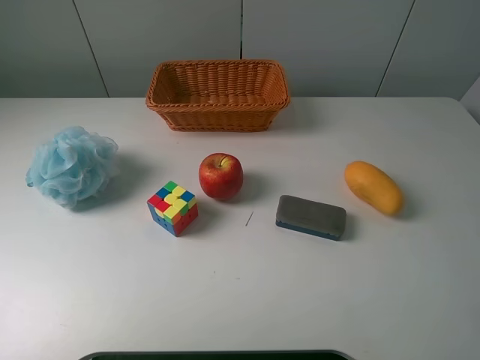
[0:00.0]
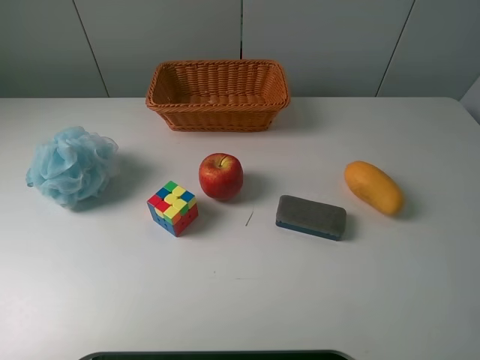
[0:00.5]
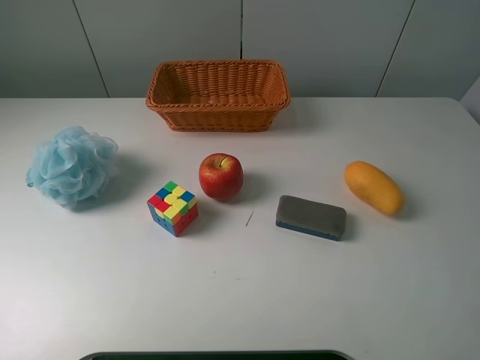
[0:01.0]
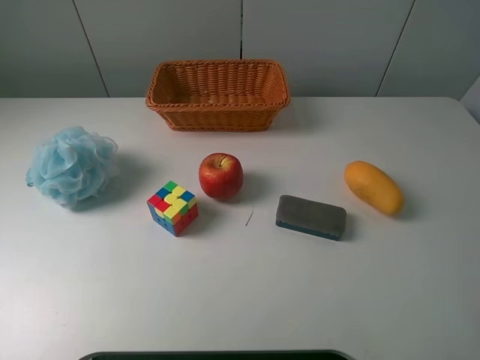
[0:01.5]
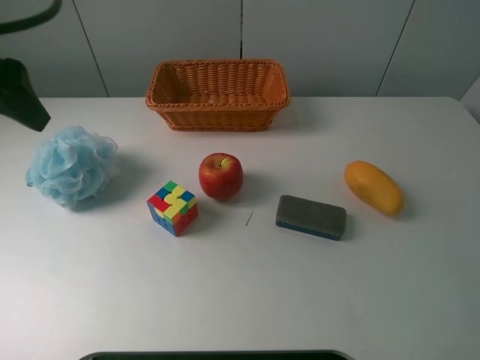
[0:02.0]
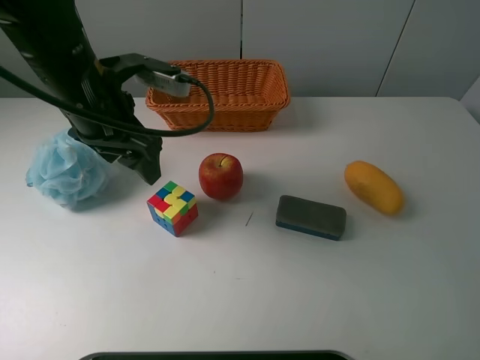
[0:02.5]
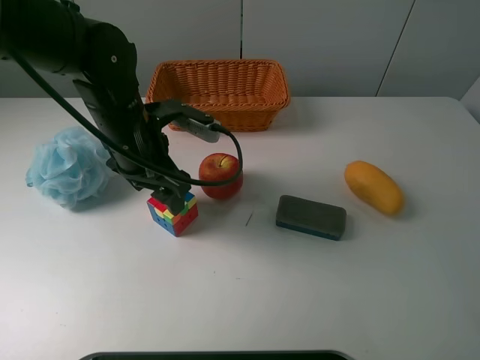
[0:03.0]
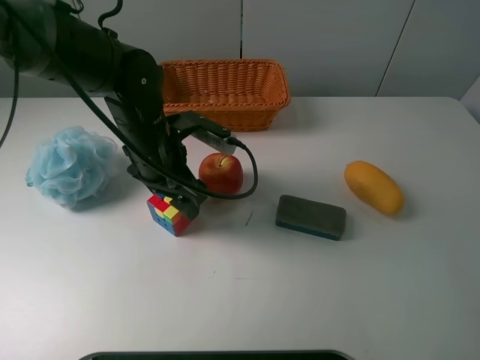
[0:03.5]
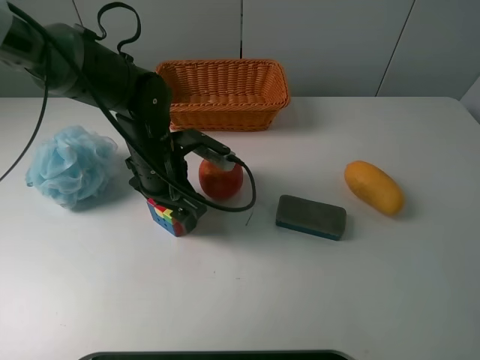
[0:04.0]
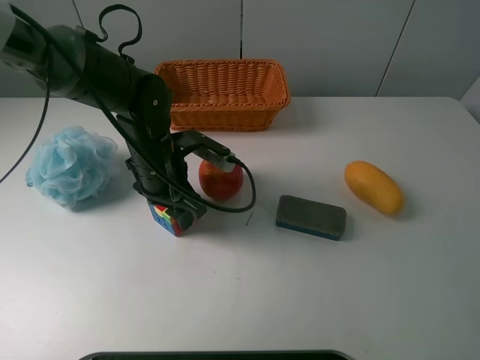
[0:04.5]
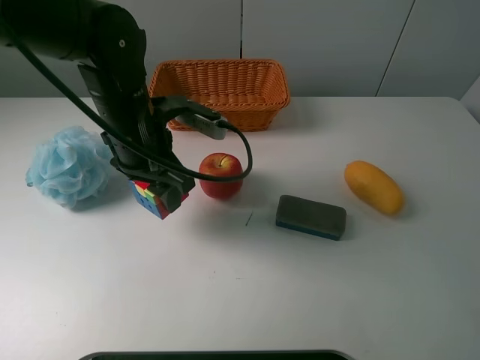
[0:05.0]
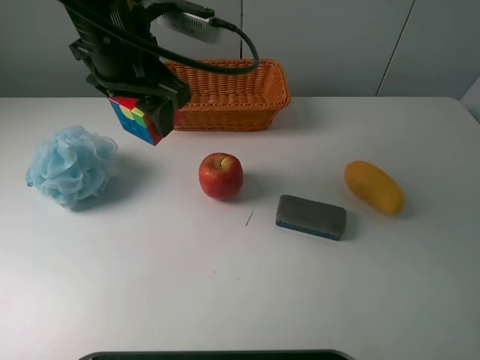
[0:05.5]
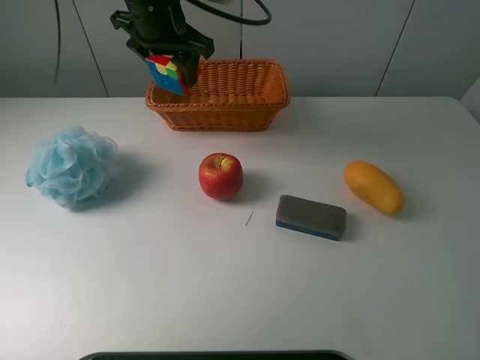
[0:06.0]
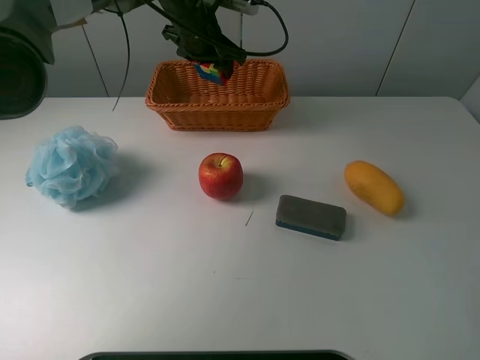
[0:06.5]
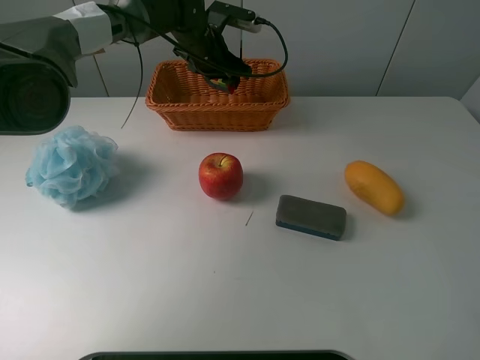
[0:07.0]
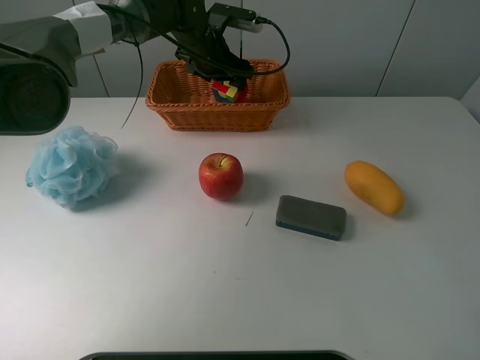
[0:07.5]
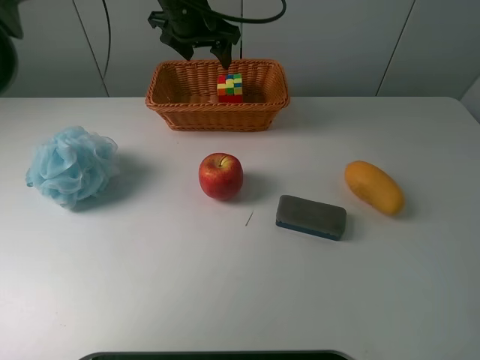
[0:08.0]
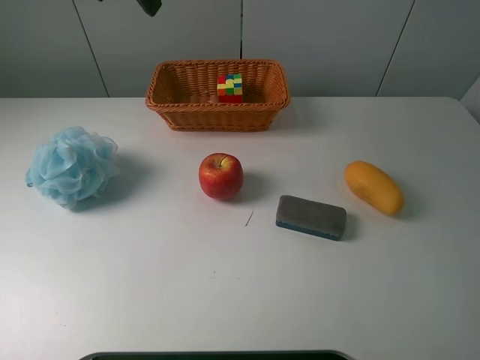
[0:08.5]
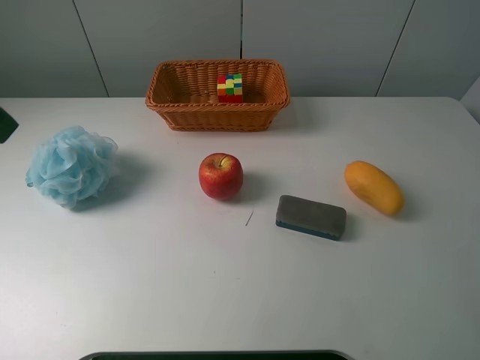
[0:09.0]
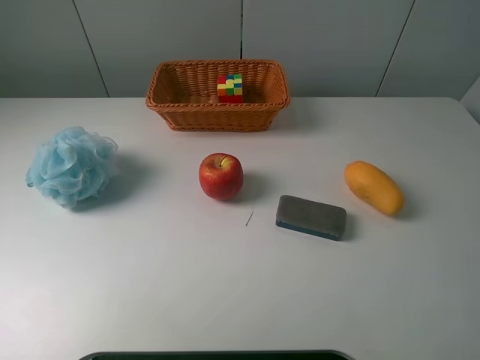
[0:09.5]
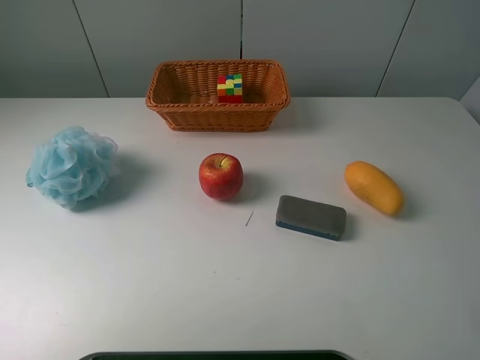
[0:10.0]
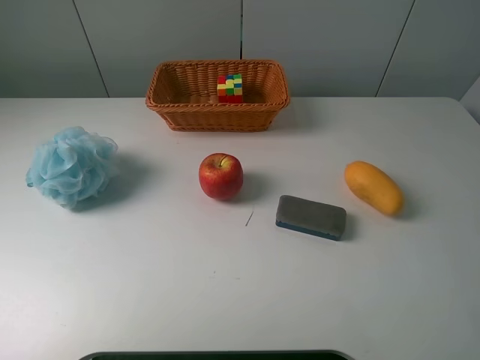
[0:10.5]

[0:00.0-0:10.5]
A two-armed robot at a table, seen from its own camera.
Task of the whole recording: use a picker to grab the item closest to the apple and place it in the basket.
Step, 0:00.0 to 0:04.0: Grasp the Rubik's Cube with the left gripper.
Step, 0:04.5 to 0:07.5: Place the Rubik's Cube into the basket with the left gripper.
0:00.0 to 0:02.0: The left gripper moves forward, approximately 25 cm.
0:02.0 to 0:04.0: The left gripper shifts some 25 cm downward and to the right.
0:04.0 to 0:06.5: The left gripper is displaced forward and upward by approximately 20 cm, and closes up.
0:06.5 to 0:08.5: The left gripper travels upward, backward and to the left by about 25 cm, and opens up.
